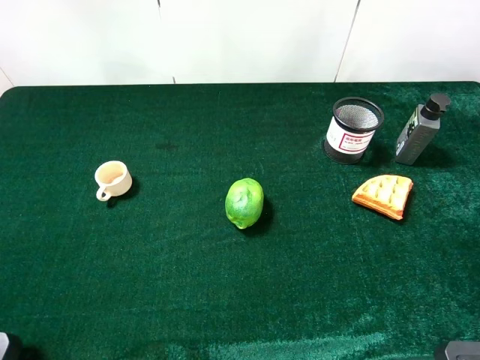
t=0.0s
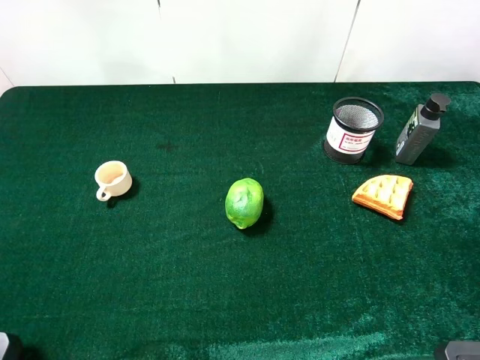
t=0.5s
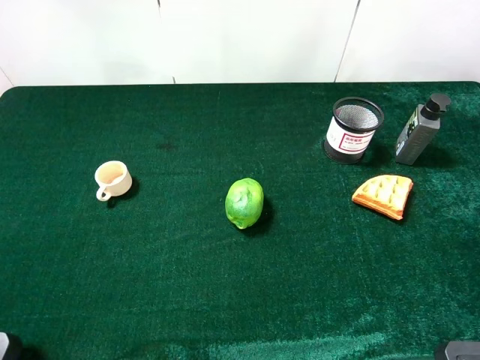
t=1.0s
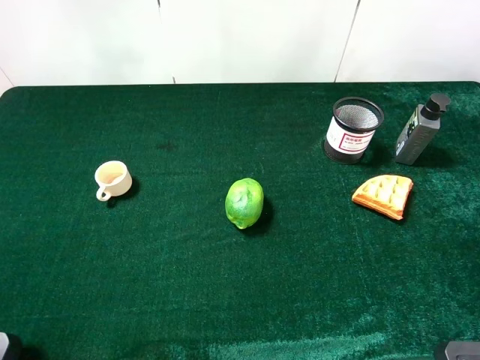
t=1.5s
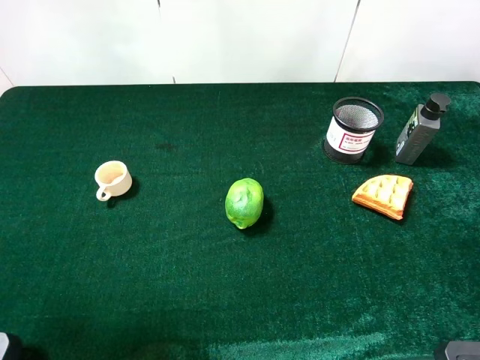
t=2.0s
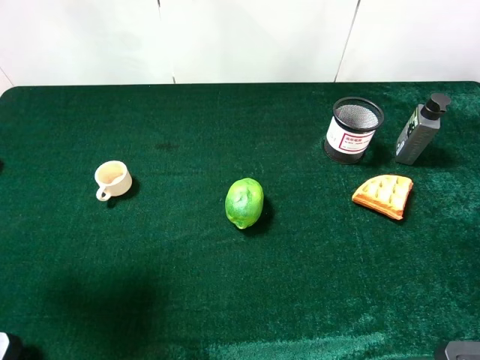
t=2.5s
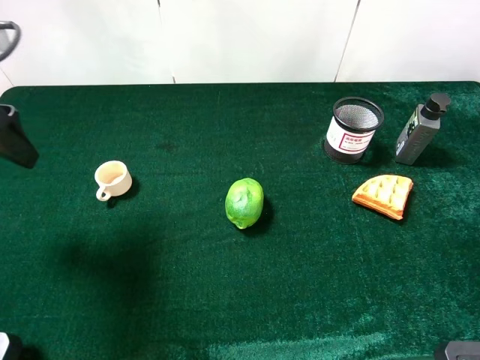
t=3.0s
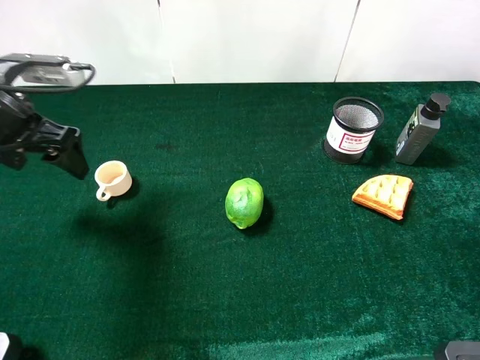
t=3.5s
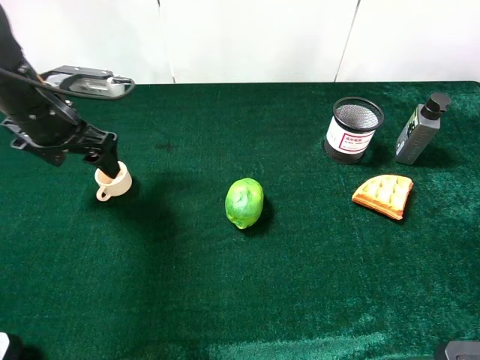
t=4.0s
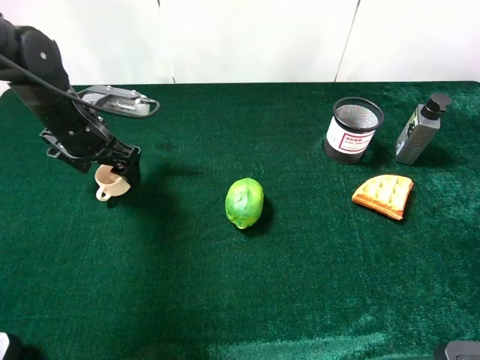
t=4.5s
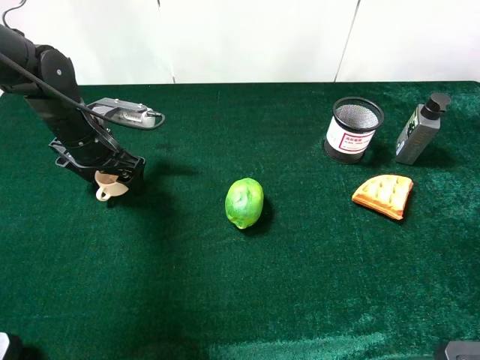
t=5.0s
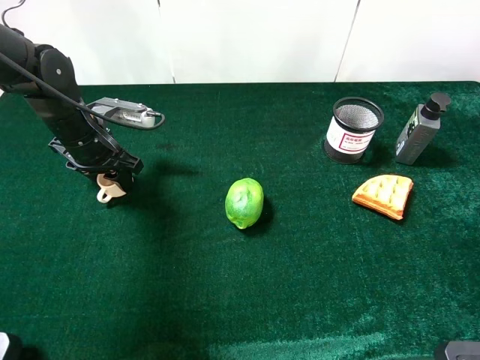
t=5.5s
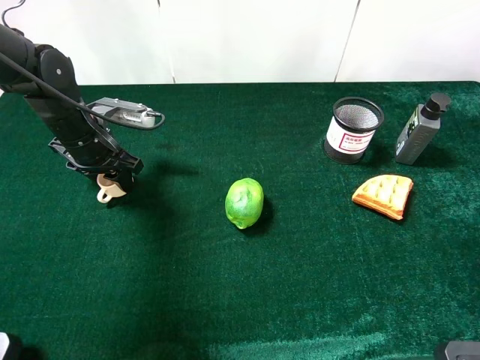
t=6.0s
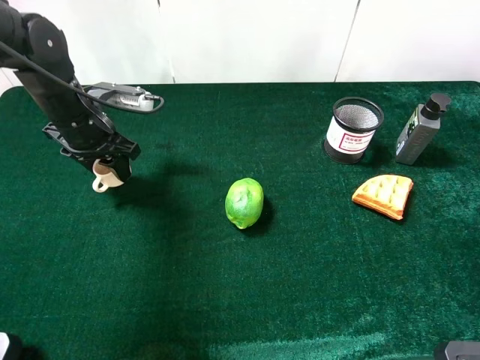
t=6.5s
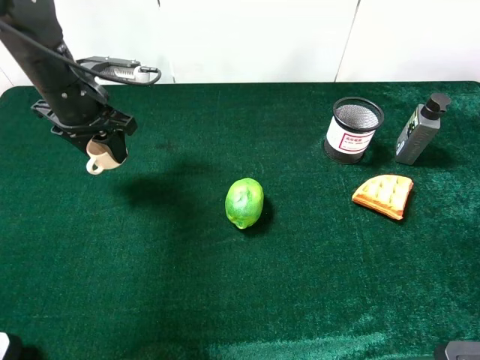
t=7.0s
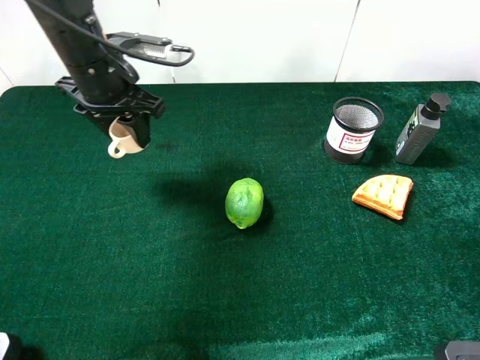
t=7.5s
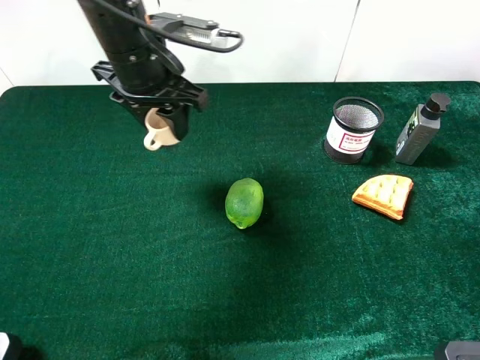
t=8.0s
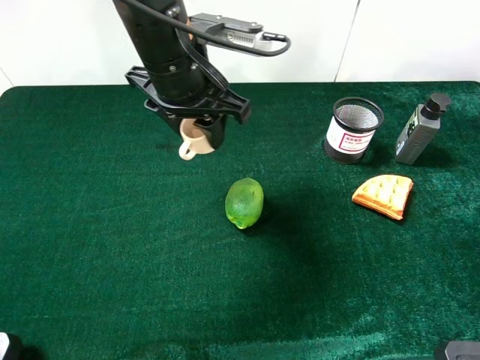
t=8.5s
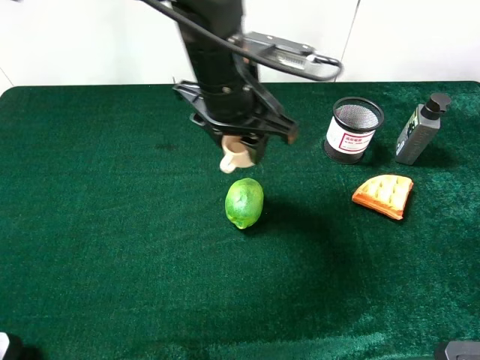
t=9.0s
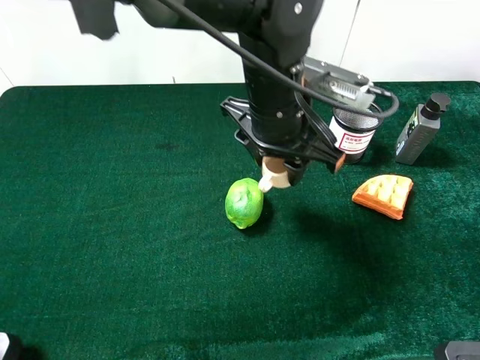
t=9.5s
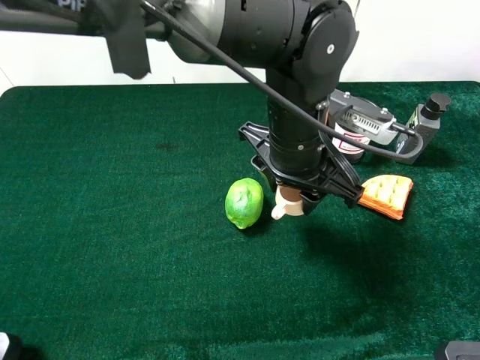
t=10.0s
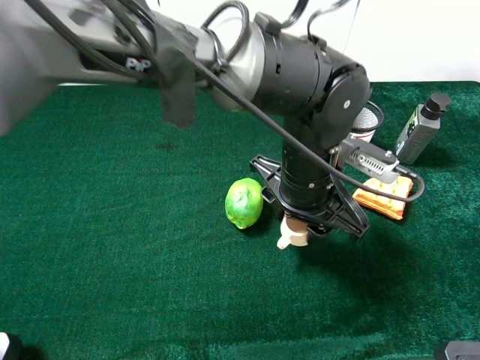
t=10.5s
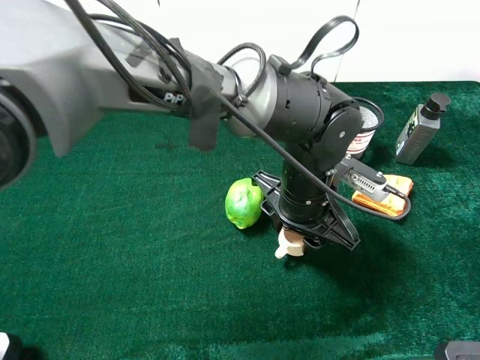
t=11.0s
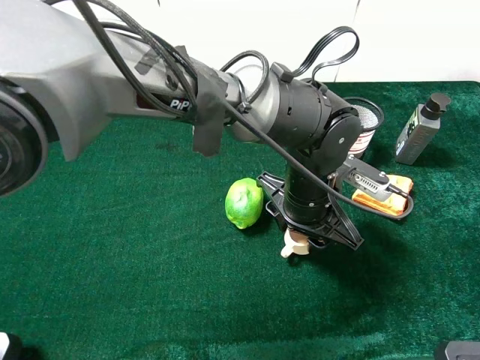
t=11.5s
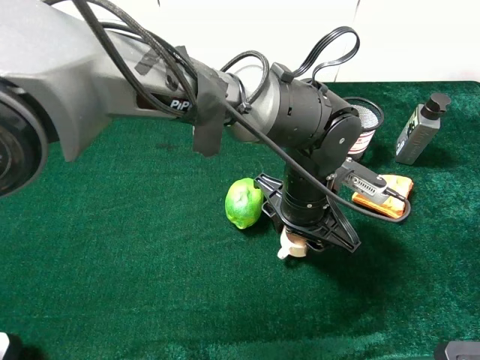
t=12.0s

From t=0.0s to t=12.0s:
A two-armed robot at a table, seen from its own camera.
Task of the whole recording: the gripper move the object.
Step, from t=0.0s to t=6.0s: Grasp the tea cup with the left gripper.
From t=2.0s to t=4.0s: The left gripper shifts approximately 25 cm forward and downward.
From t=4.0s to t=6.0s: The left gripper shifts about 5 cm downward, and closes.
From t=6.0s to t=8.0s: The left gripper goes some 15 cm upward and to the right.
From t=8.0s to t=10.0s: The left gripper shifts approximately 20 cm to the right and backward.
From t=10.0s to t=12.0s: The left gripper moves downward, some 10 cm.

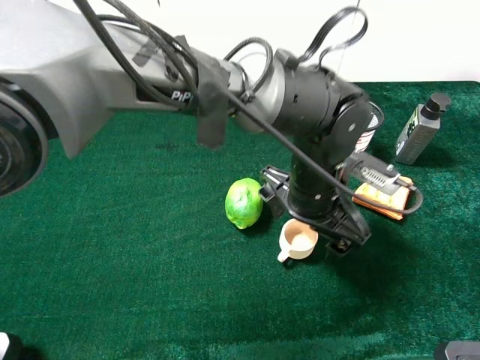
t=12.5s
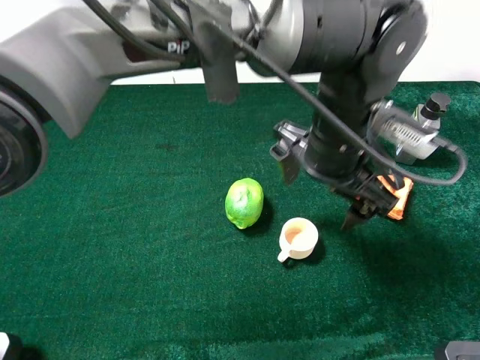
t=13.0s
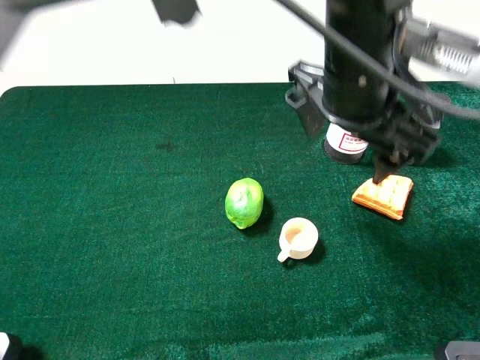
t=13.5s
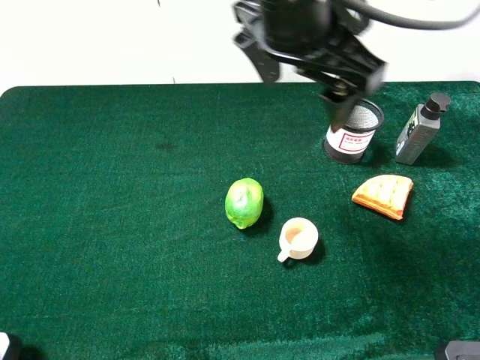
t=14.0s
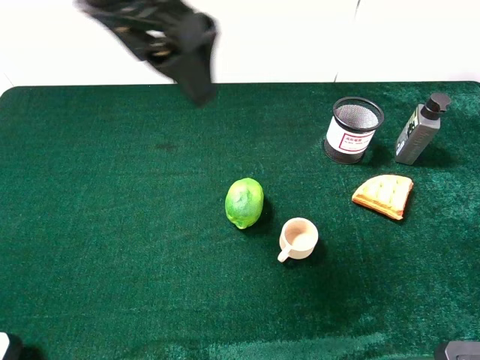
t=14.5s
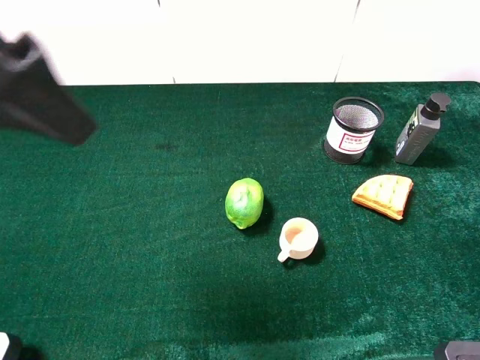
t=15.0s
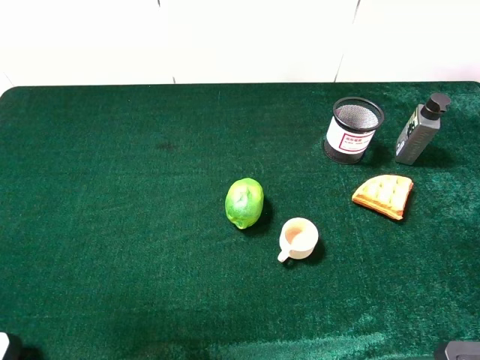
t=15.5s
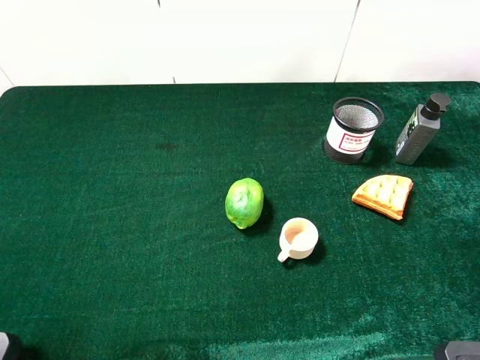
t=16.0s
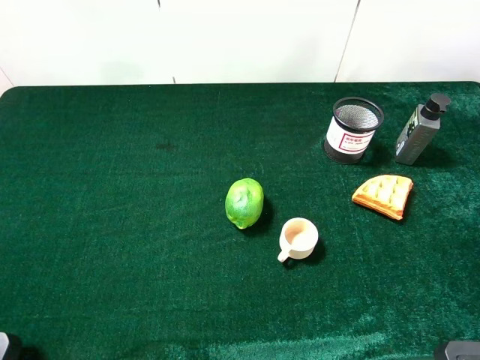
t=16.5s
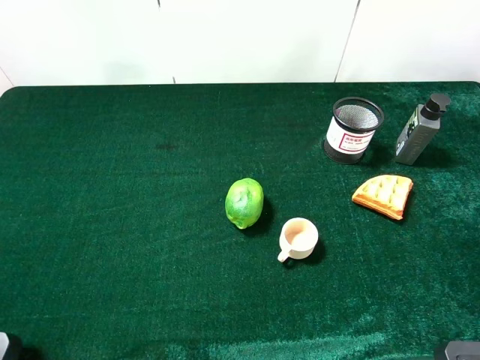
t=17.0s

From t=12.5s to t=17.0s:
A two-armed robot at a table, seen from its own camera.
Task of the whole recording: the gripper move the object.
From t=12.5s to t=14.5s: The left gripper is displaced upward and to the left by some 30 cm.
From t=14.5s to t=17.0s: The left gripper moves backward and to the left, roughly 35 cm.

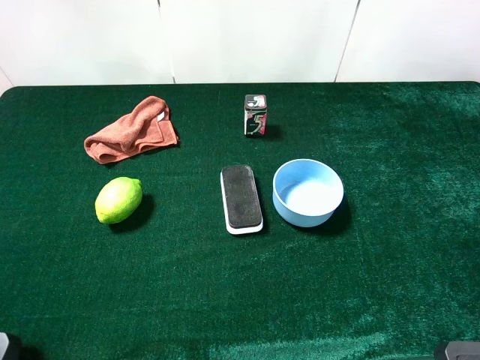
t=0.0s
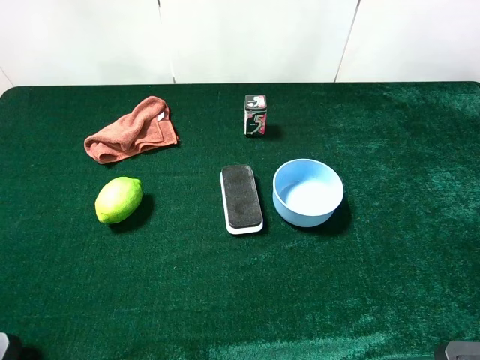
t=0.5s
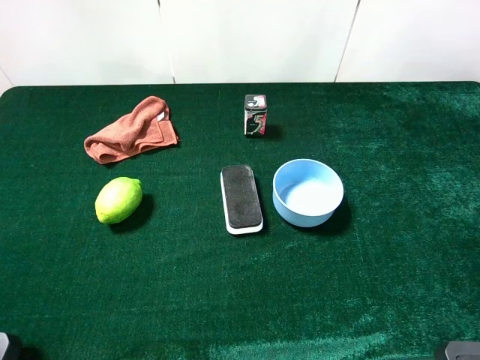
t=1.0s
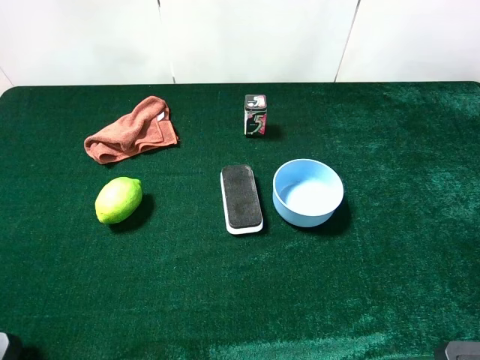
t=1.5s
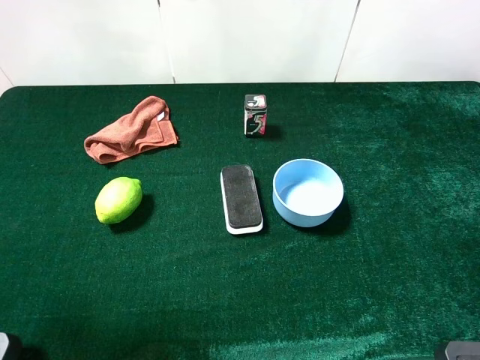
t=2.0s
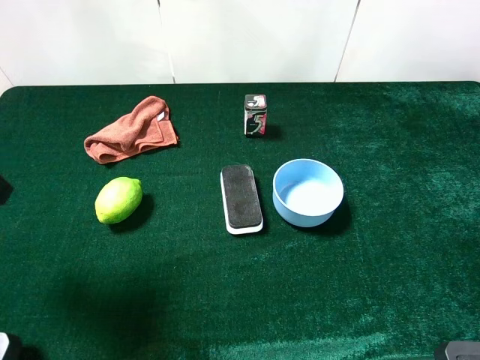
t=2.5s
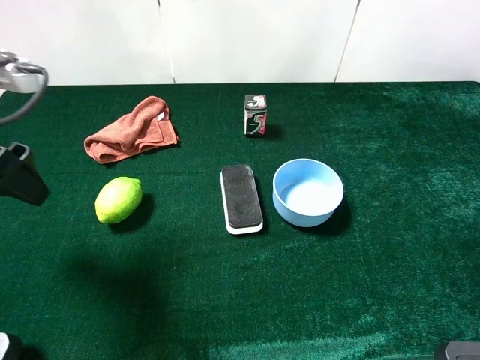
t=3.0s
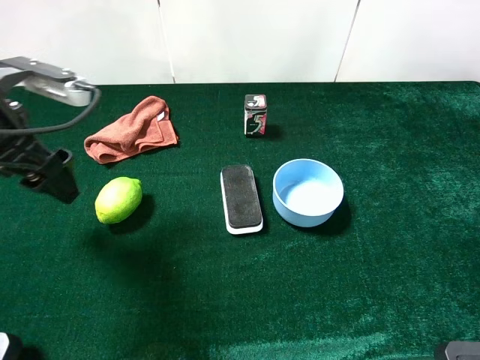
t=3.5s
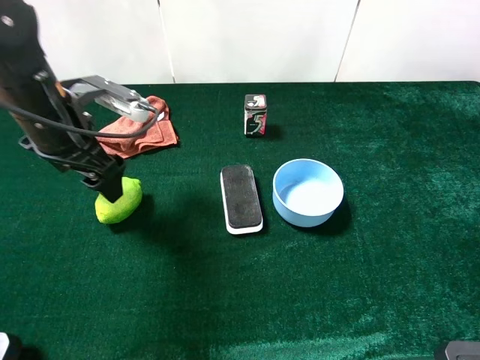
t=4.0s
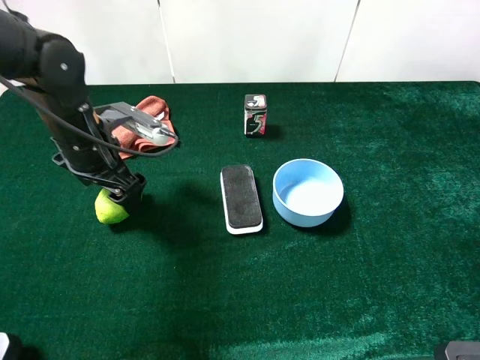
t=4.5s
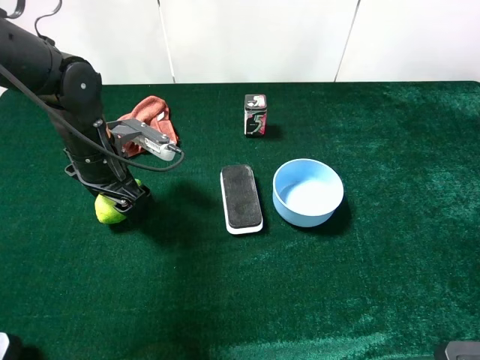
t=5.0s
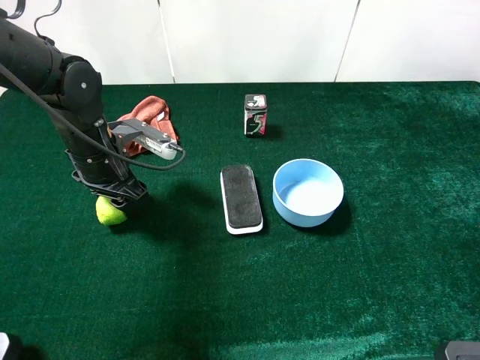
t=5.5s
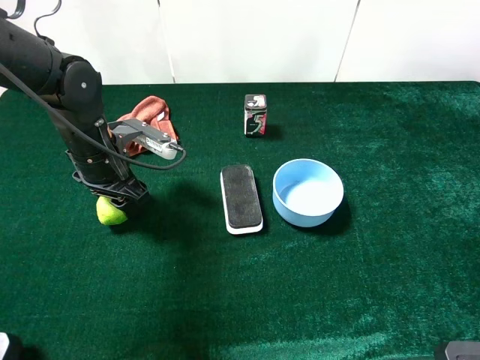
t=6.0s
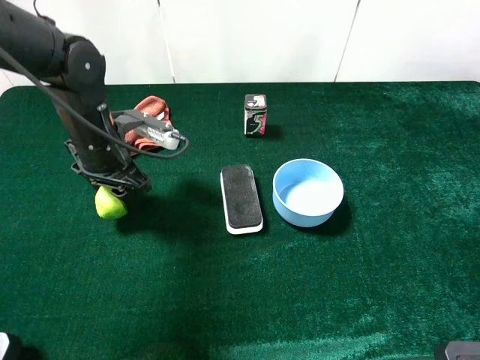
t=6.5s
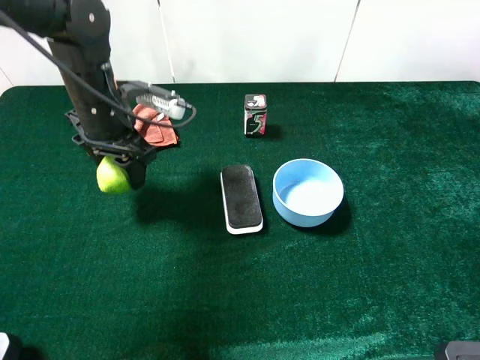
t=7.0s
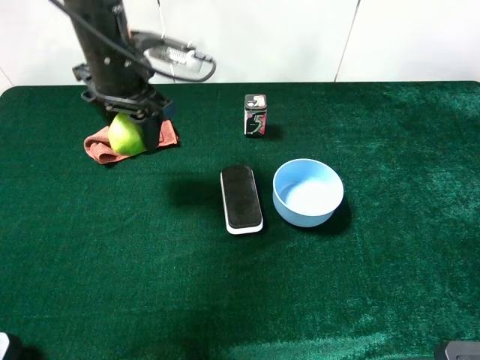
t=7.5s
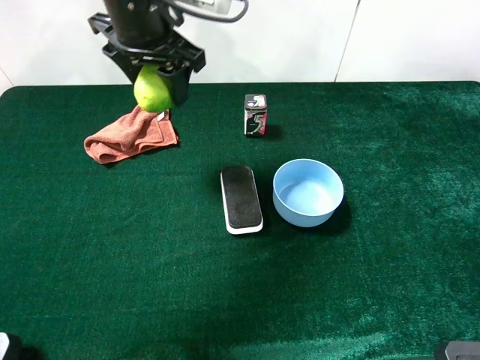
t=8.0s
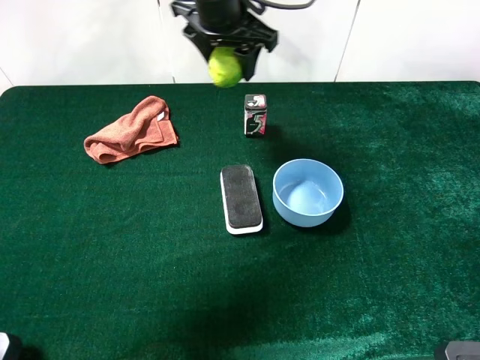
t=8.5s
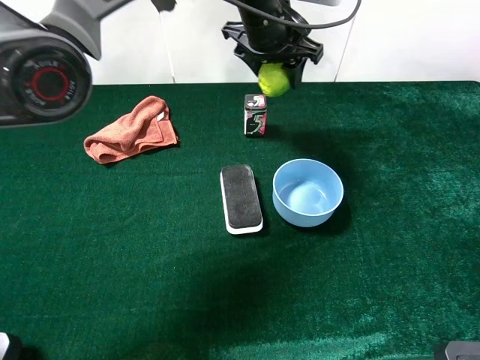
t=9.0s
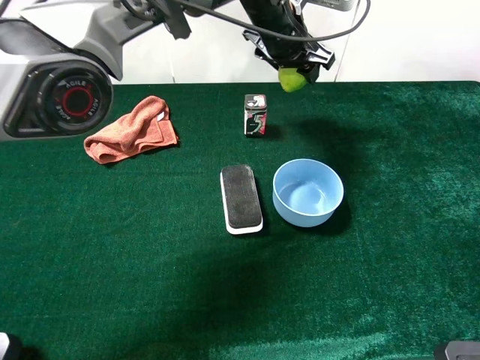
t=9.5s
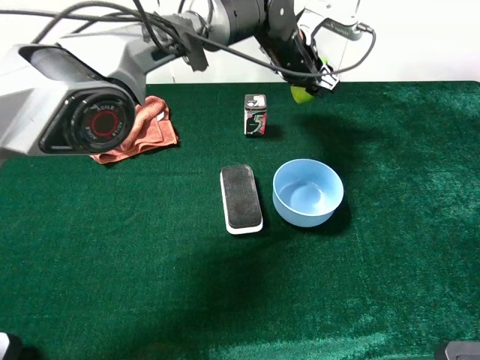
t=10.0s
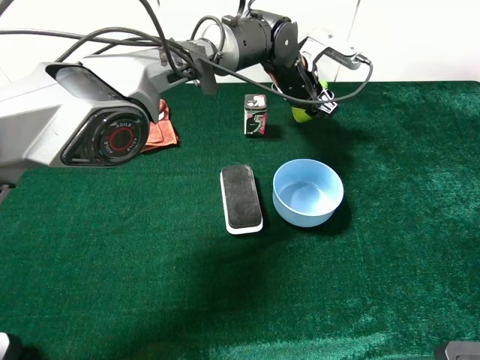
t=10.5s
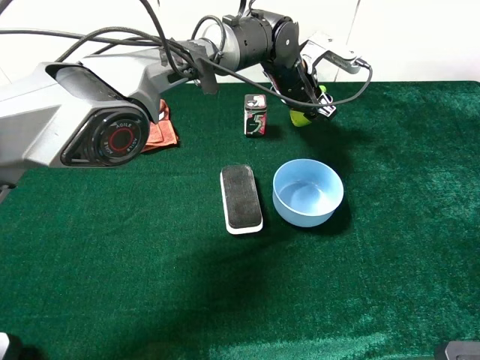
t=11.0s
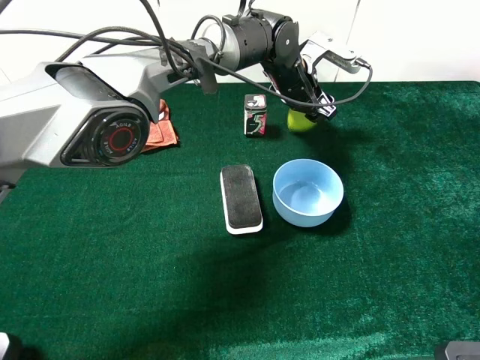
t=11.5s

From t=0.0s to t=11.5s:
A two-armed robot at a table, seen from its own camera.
Task of the whole recording: the gripper move the object.
Step, from t=0.0s to t=6.0s: Grasp the green lemon with the left gripper.
From t=0.0s to t=2.0s: The left gripper heads forward, covering some 10 cm.
From t=2.0s to t=4.0s: The left gripper travels forward, downward and to the right by about 25 cm.
From t=4.0s to t=6.0s: The left gripper shifts about 5 cm downward, and closes up.
From t=6.0s to t=7.5s: The left gripper is displaced upward and forward by about 15 cm.
From t=7.5s to t=9.5s: The left gripper heads to the right and forward, covering roughly 20 cm.
From t=9.5s to t=11.5s: The left gripper heads downward, covering some 10 cm.
